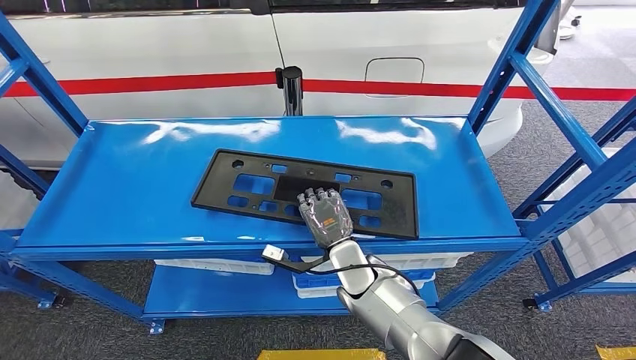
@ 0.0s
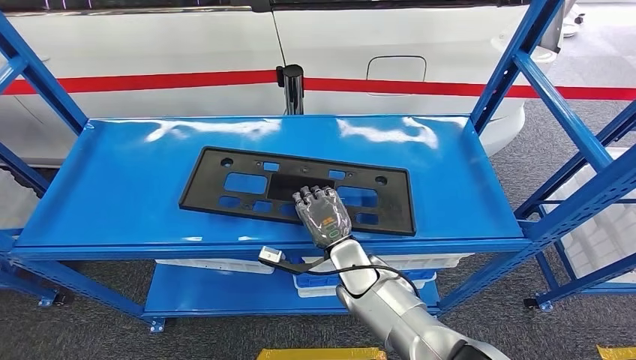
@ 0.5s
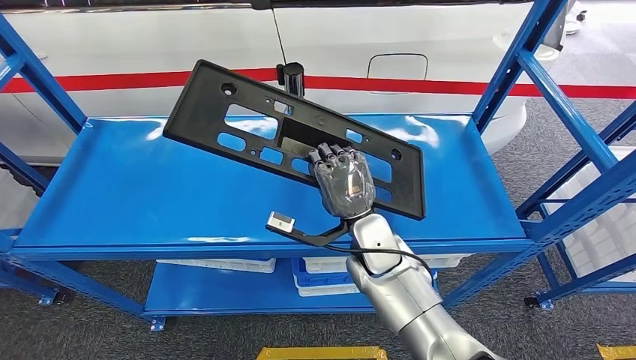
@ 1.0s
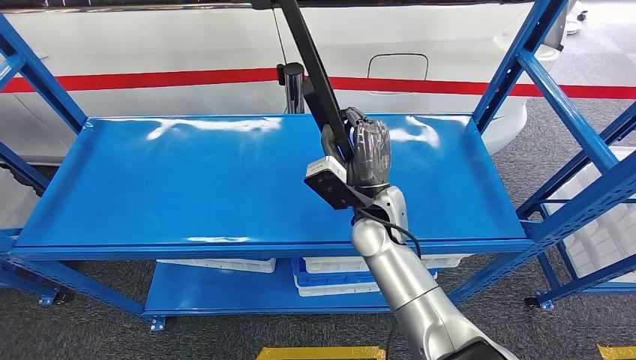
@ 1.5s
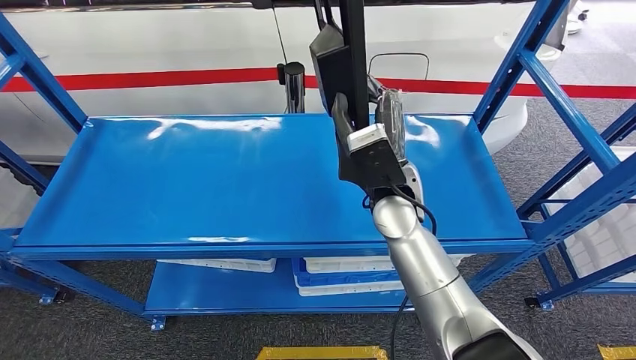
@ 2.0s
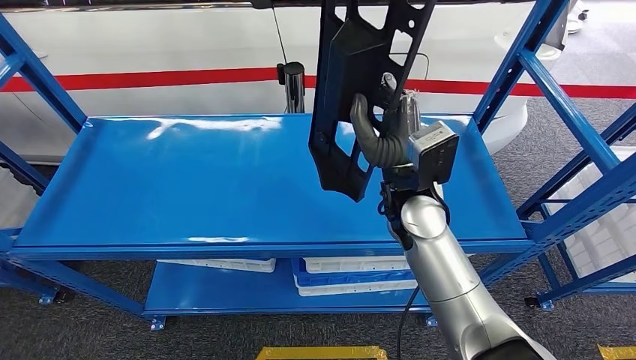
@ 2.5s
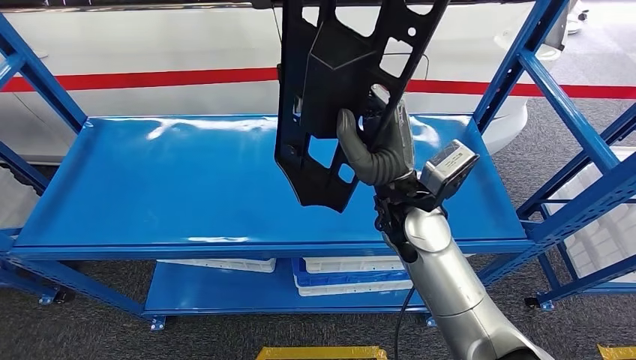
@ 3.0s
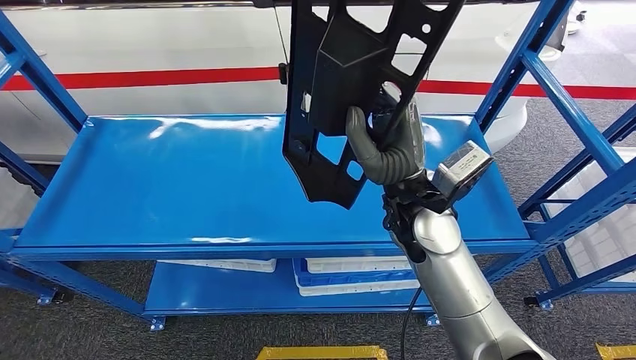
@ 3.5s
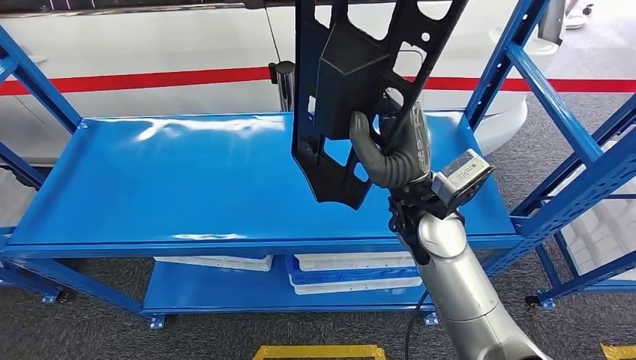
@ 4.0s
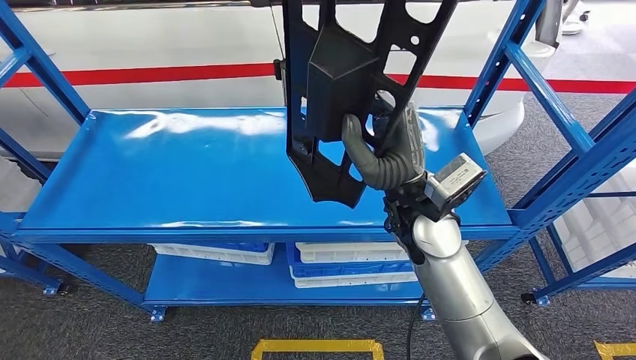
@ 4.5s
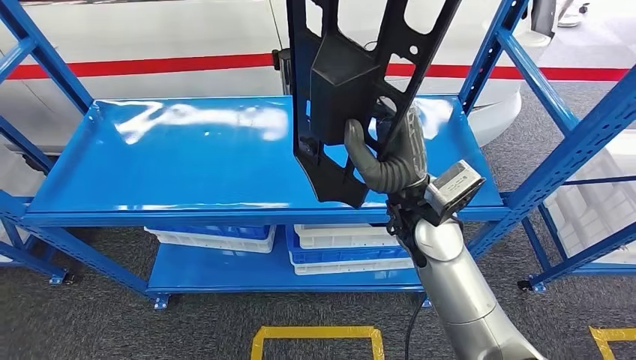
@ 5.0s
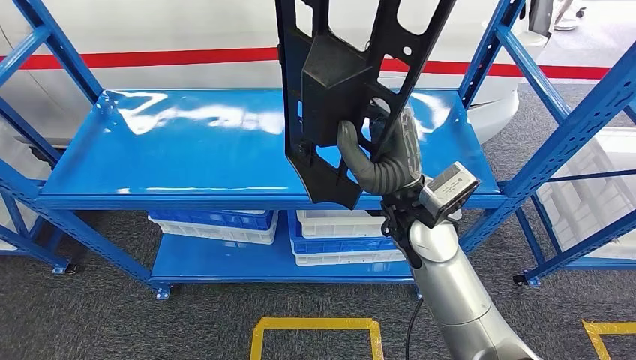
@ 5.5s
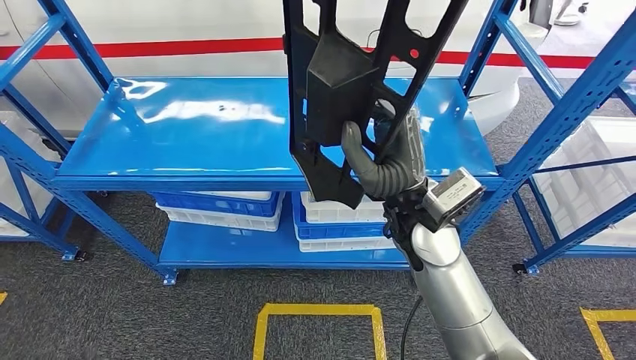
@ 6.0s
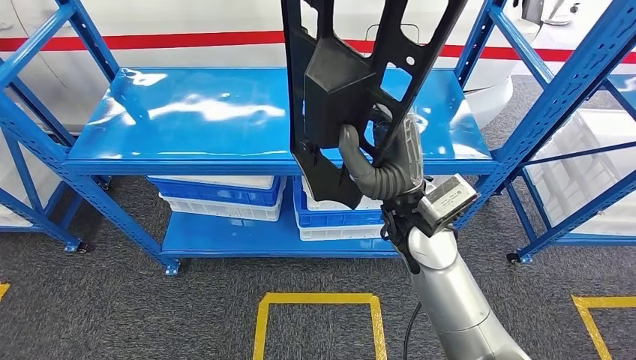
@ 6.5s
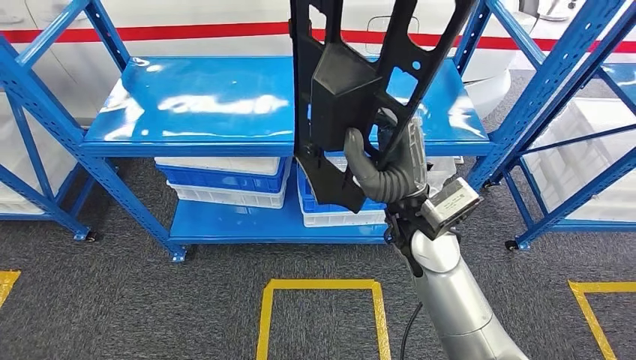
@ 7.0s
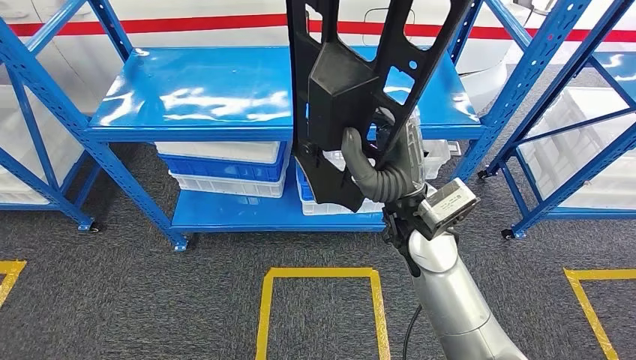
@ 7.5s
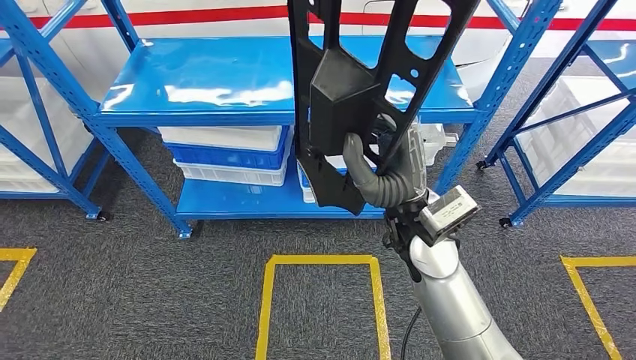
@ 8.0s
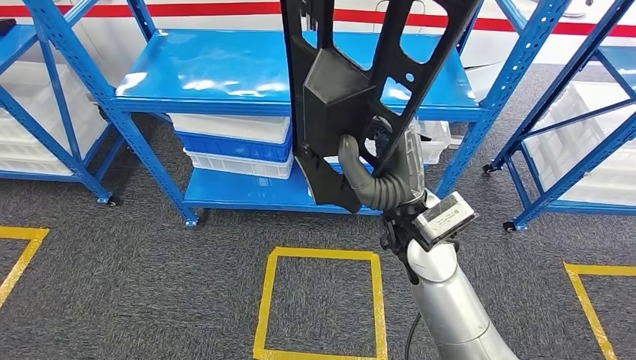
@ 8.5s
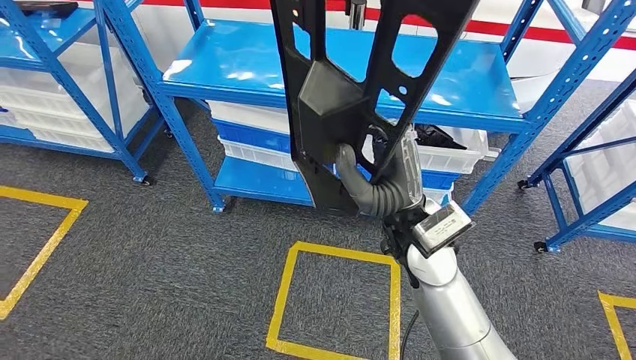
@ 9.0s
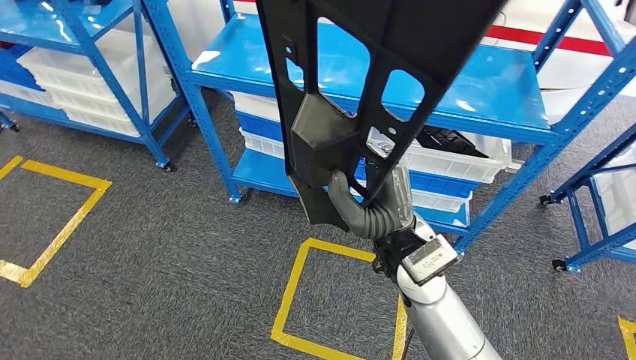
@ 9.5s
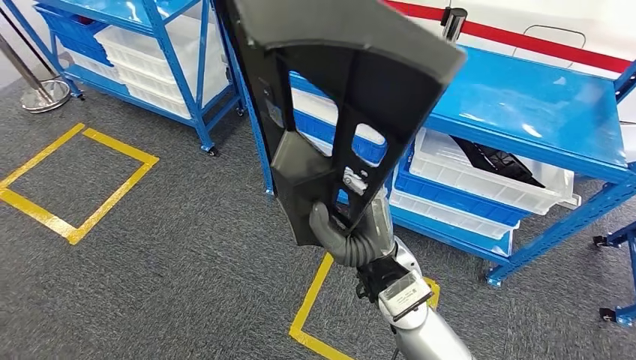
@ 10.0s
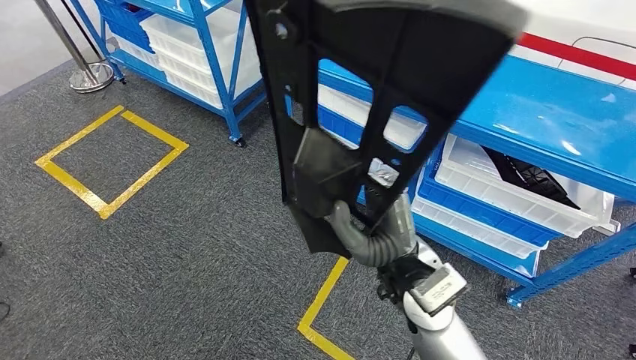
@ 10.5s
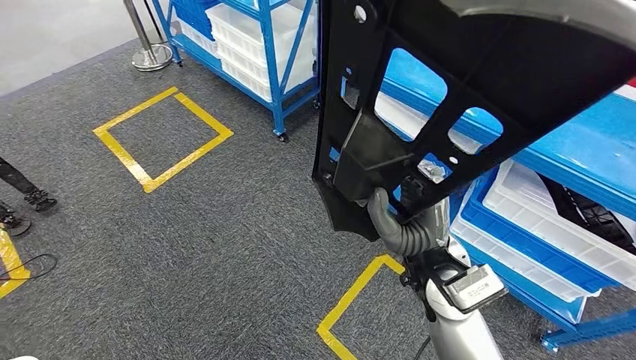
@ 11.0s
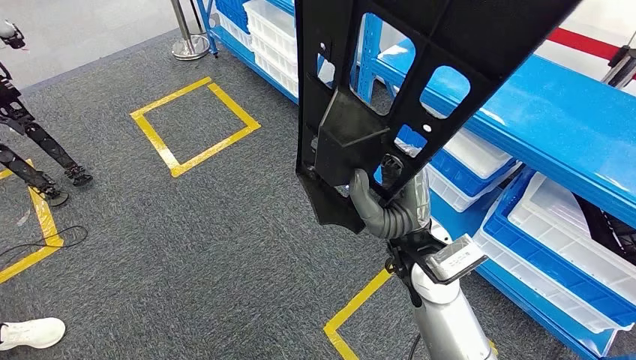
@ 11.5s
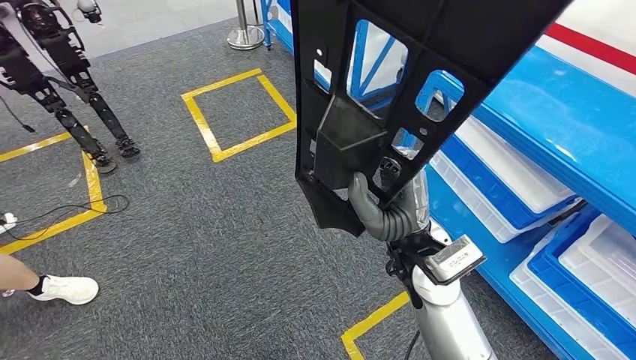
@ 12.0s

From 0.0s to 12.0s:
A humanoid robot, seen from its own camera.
Step, from 0.0s to 5.5s: Pick up the large material from the shelf.

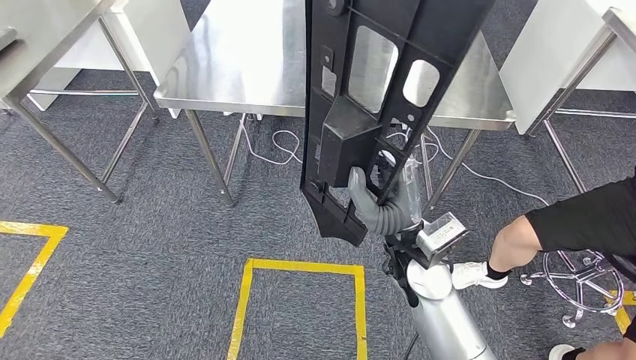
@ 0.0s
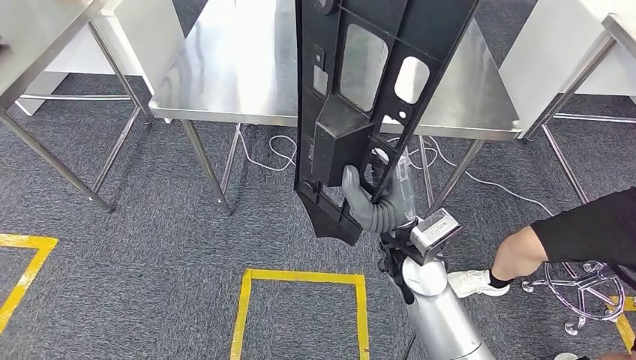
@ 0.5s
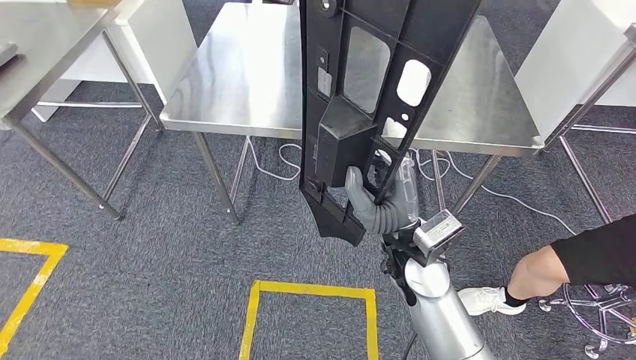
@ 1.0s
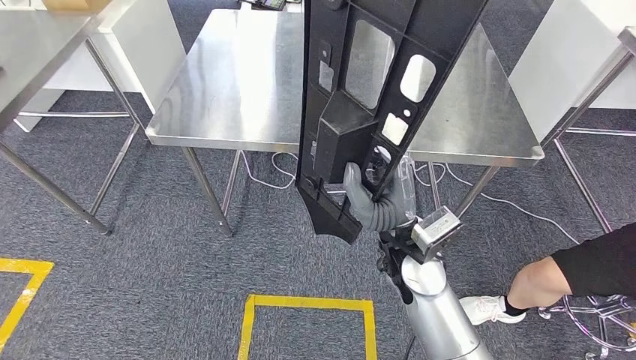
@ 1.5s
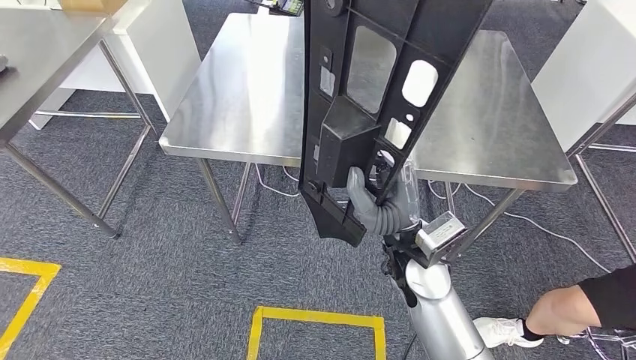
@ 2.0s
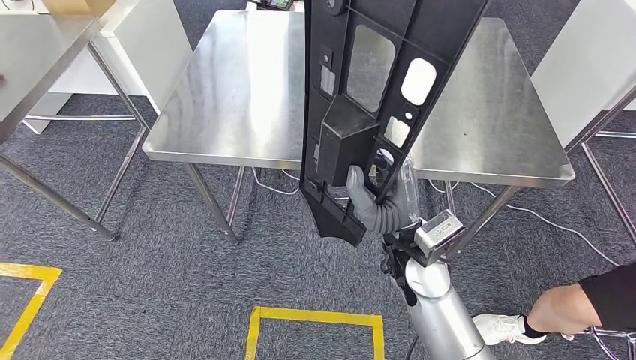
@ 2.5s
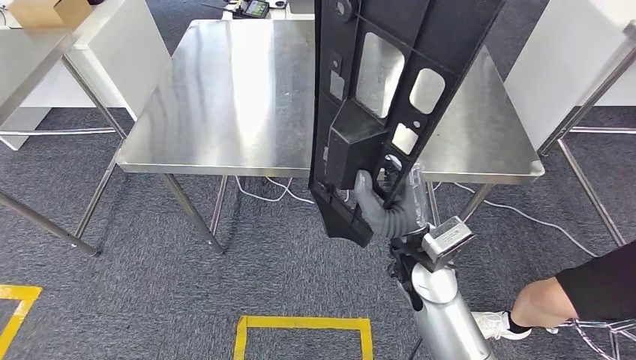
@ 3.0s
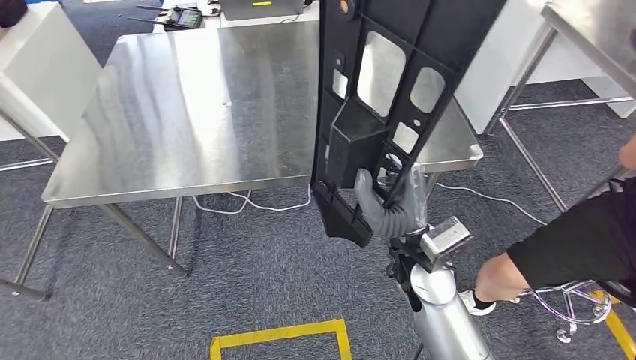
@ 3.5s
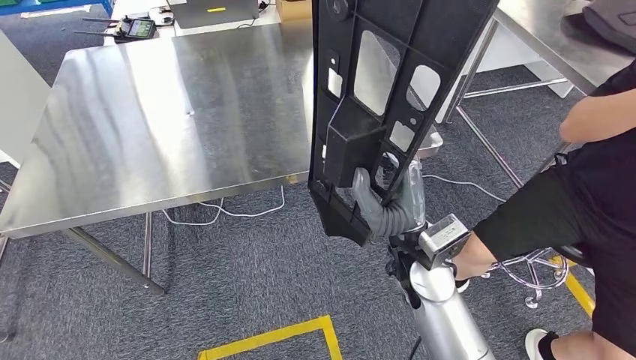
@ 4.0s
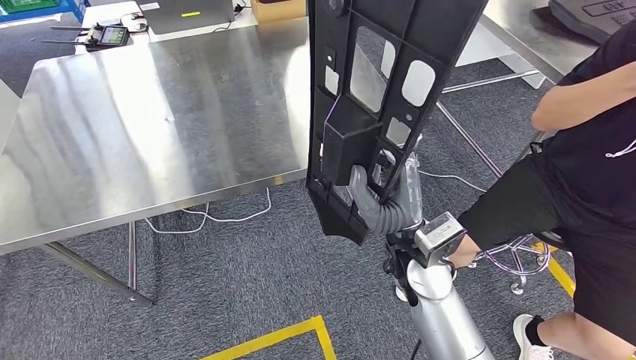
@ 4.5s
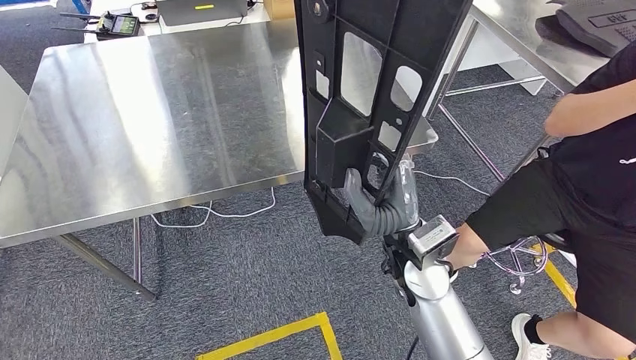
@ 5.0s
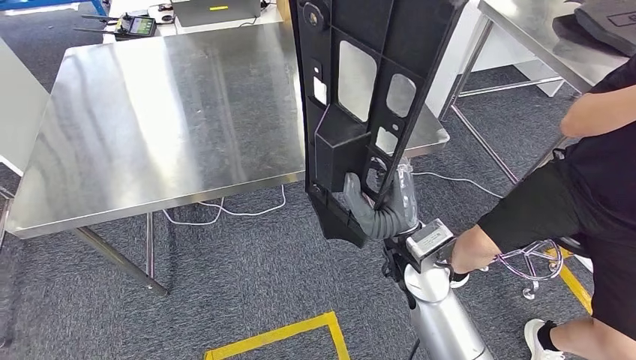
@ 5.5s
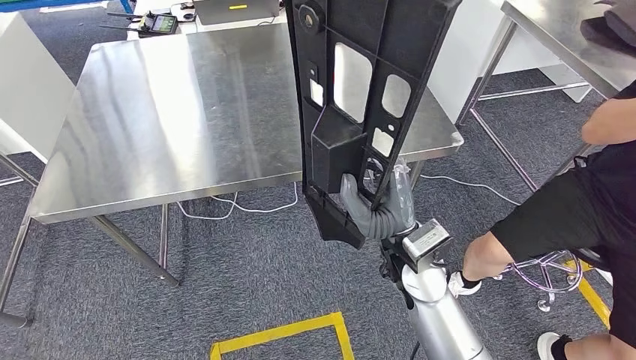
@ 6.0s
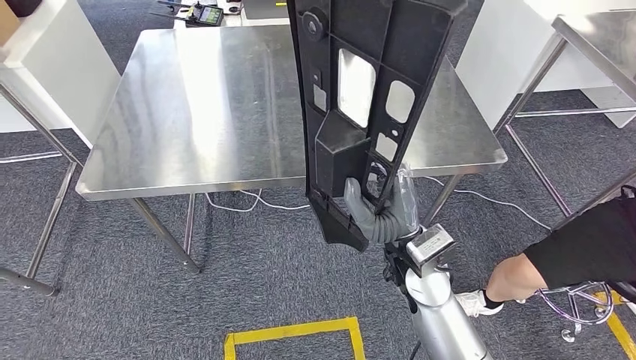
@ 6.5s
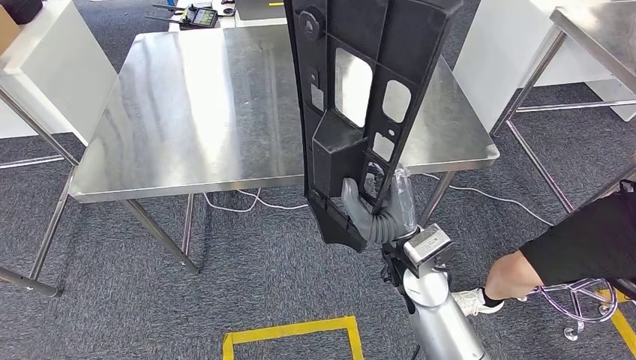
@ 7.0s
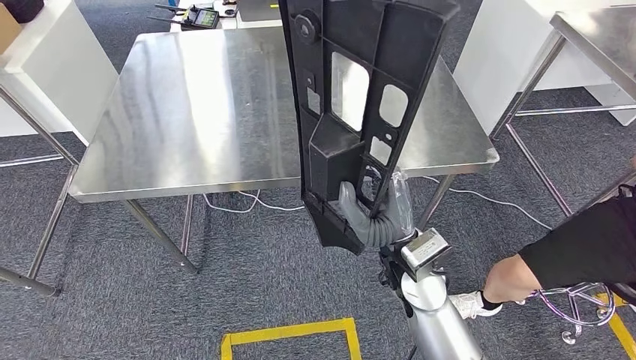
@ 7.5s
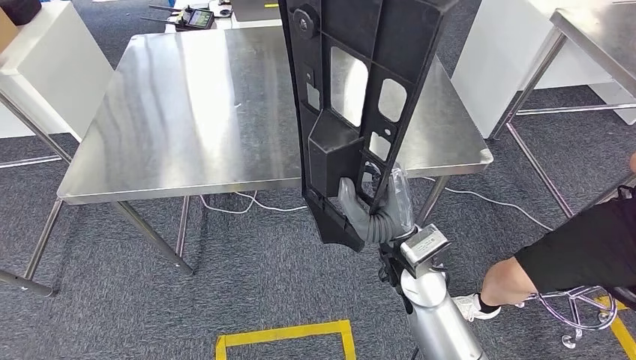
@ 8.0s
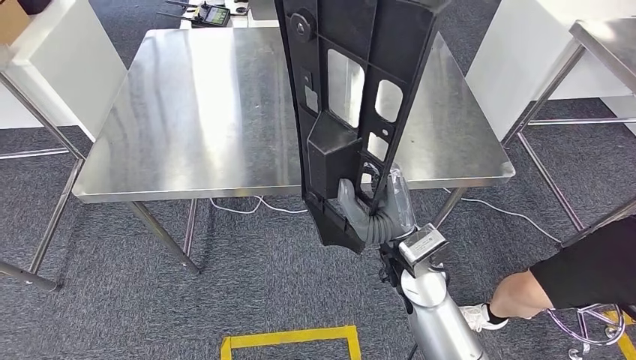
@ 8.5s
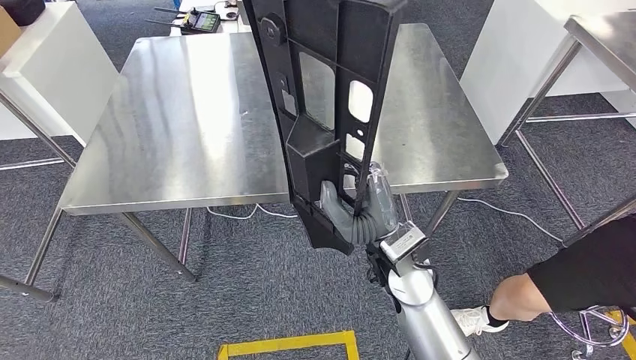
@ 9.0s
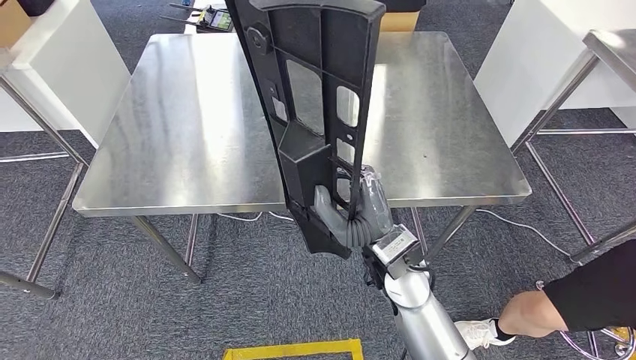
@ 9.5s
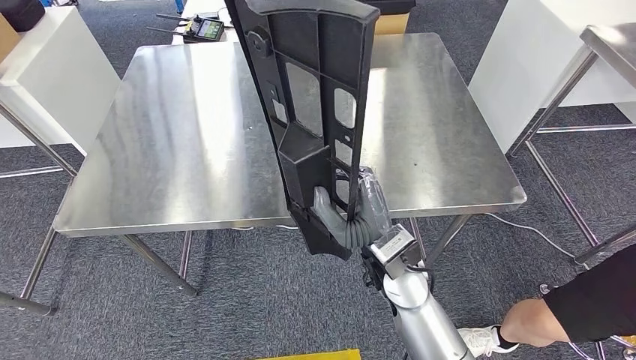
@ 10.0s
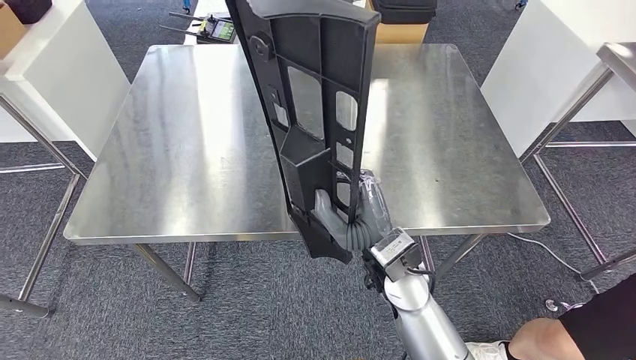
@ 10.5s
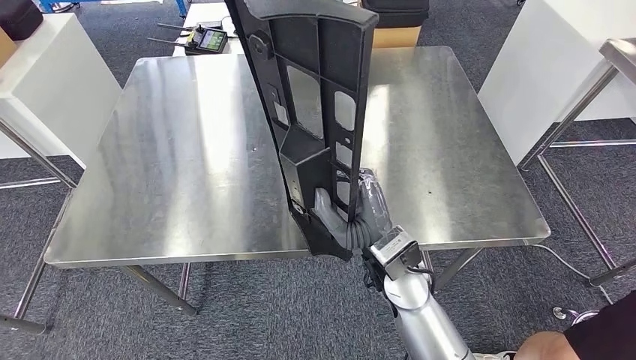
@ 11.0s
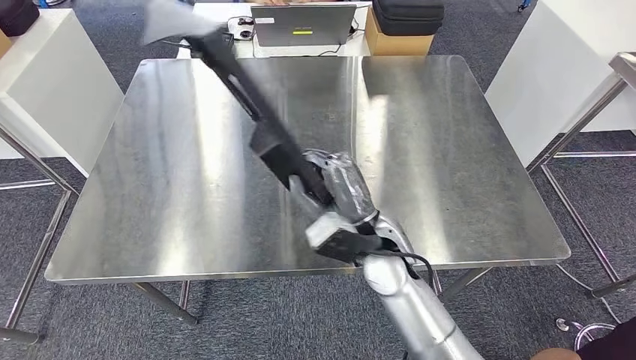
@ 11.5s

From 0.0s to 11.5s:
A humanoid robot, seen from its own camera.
Step, from 0.0s to 7.0s: Move the large material to the front of the workbench.
